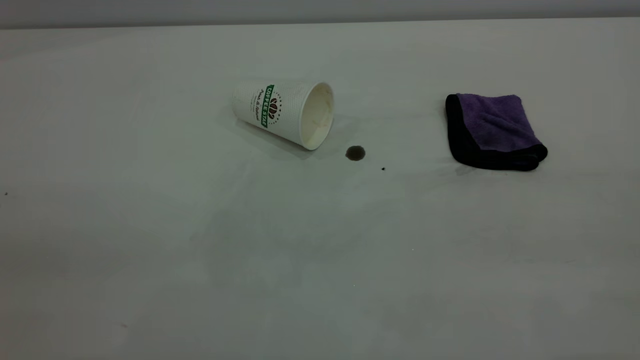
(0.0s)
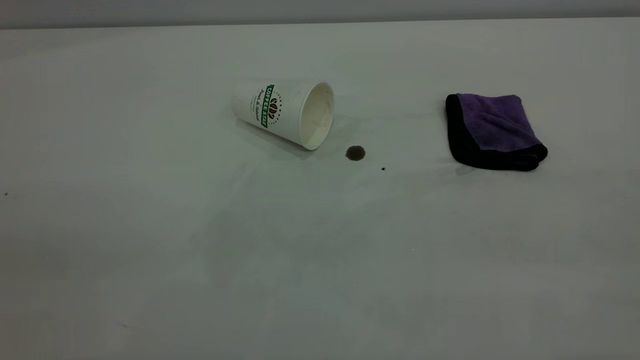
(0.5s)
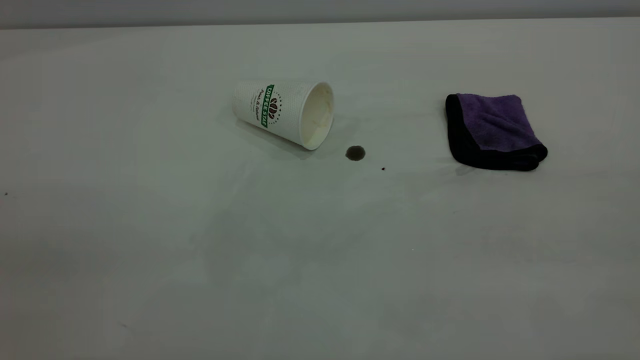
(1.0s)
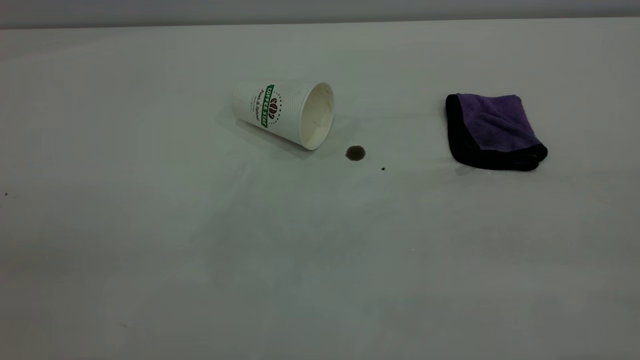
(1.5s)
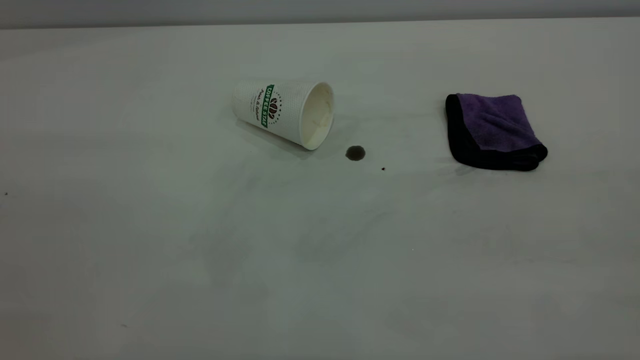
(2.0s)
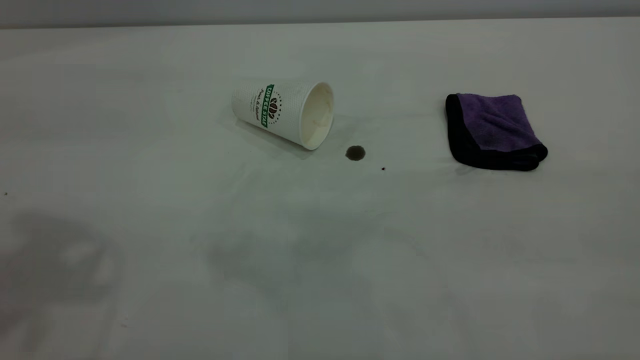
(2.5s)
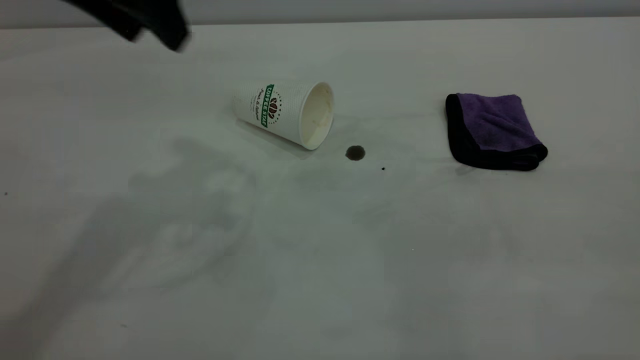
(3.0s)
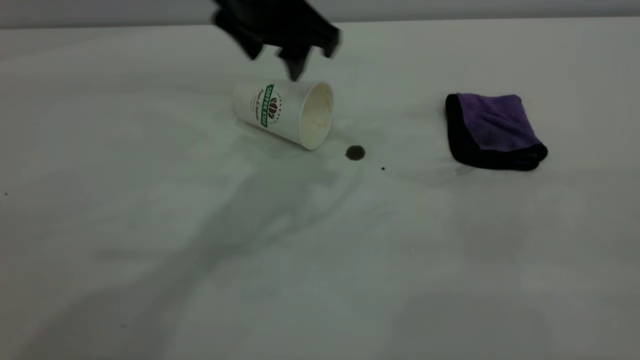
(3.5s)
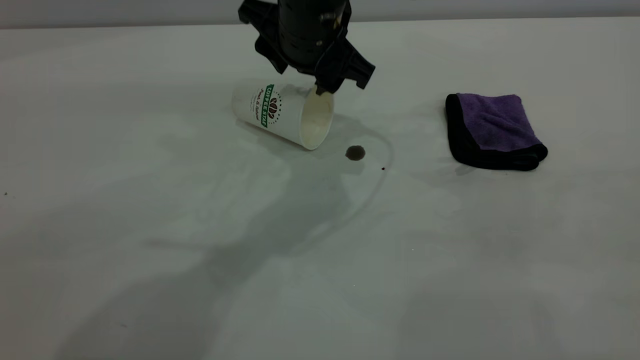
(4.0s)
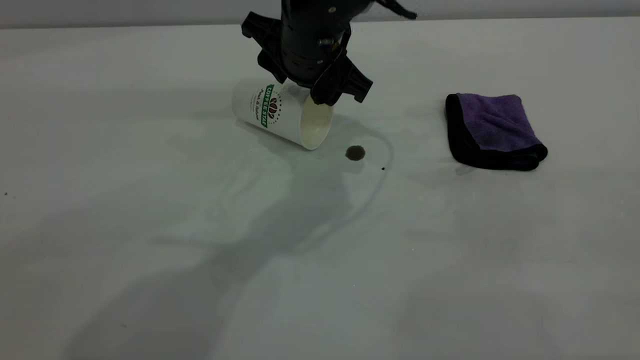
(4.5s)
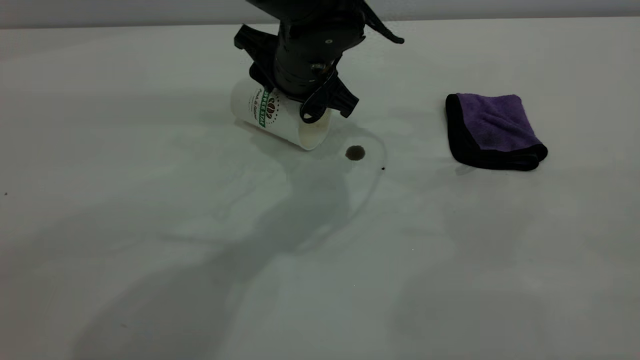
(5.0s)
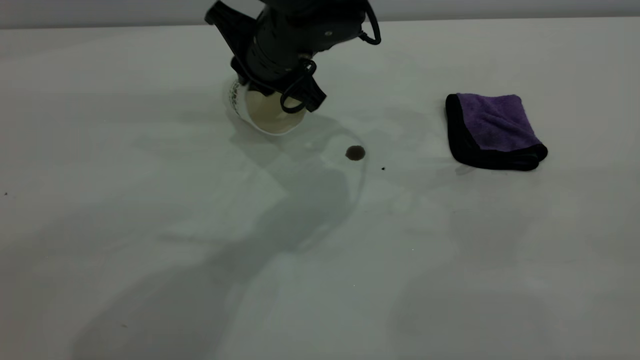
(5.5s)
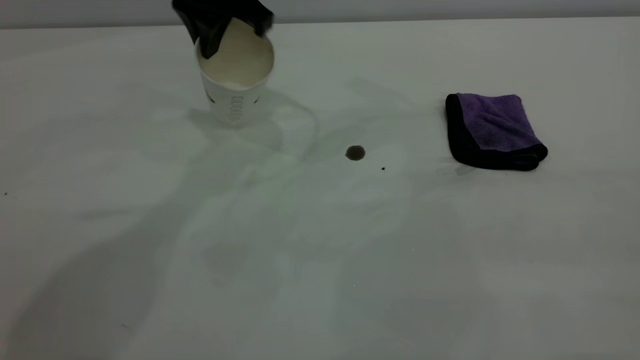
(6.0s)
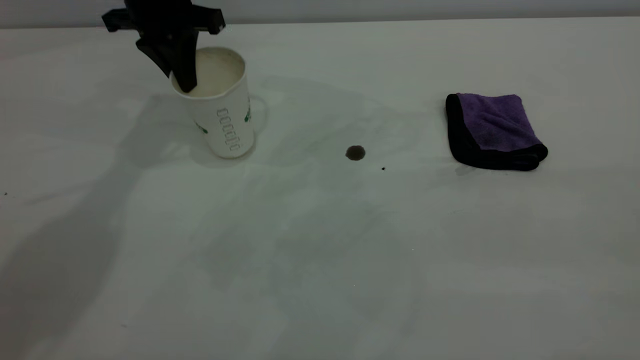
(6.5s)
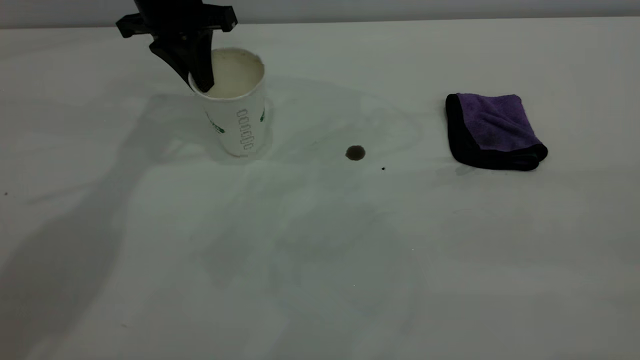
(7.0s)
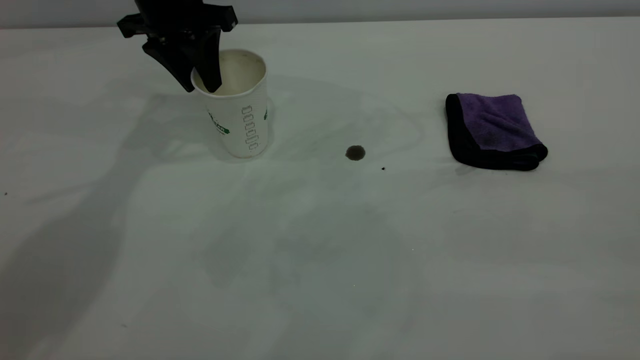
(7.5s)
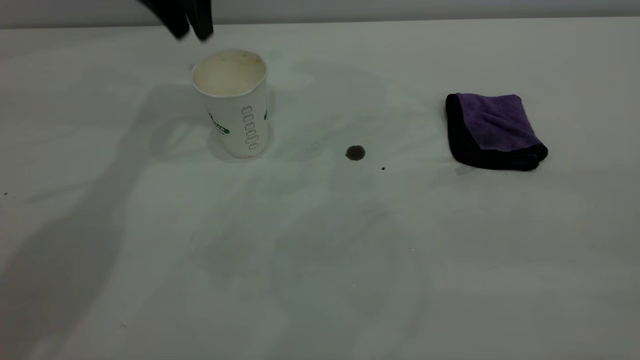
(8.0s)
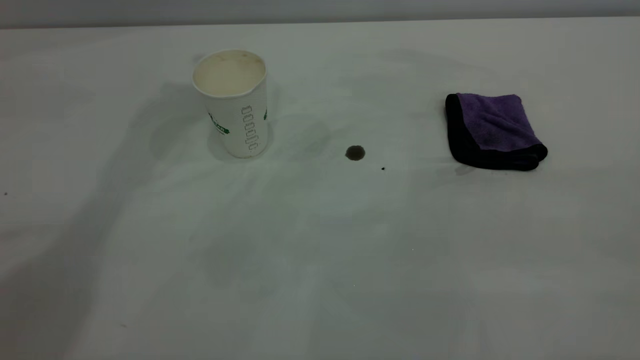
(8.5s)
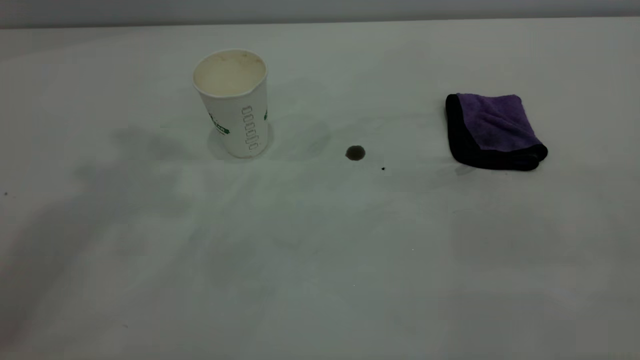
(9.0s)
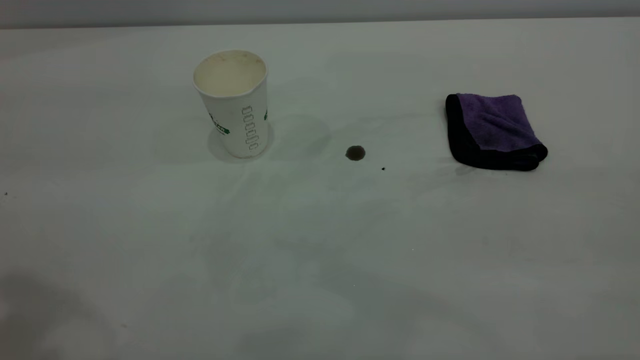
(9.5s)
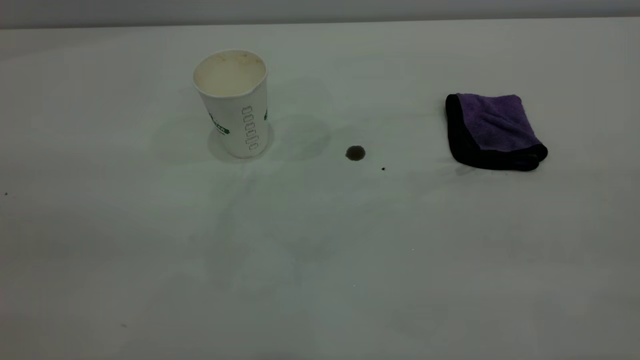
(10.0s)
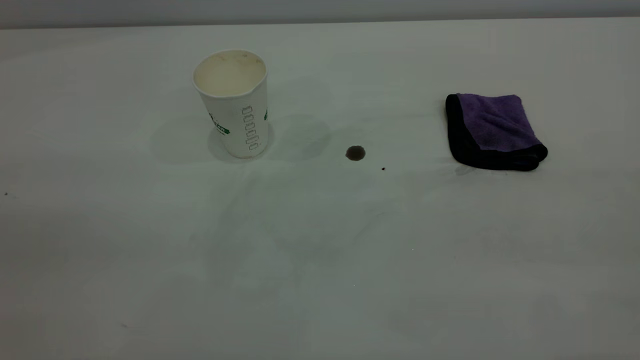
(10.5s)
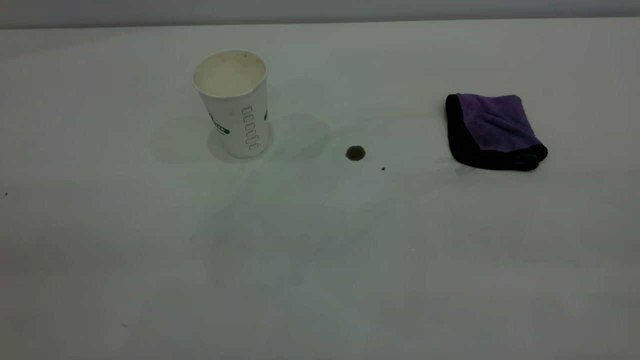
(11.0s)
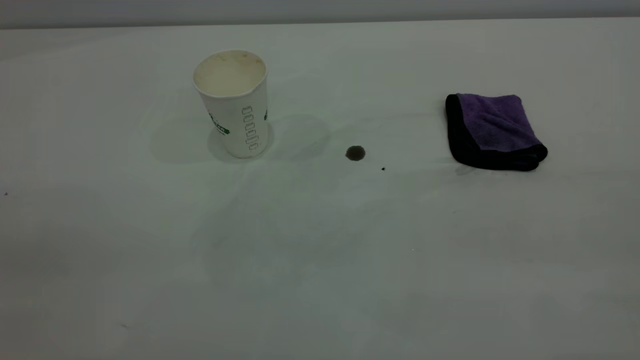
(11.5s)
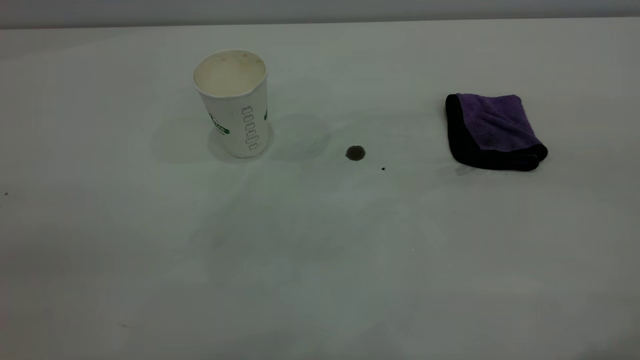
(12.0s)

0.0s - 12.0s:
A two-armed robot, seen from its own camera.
Task of the whole recording: the left gripper pick up the fallen cup and place it upright, the right gripper grasp the purple rag and wipe the coffee stain on the table, the right gripper put the purple rag back in its original position.
Step, 0.0s - 7.5s: Stand the paper cup upright.
2.0s - 4.0s: The left gripper is displaced forward, to the right and downward by about 50 cm.
4.0s - 6.0s: The left gripper goes approximately 15 cm to the left, forward and upward, and closes.
6.0s - 8.0s: The left gripper moves to the left, roughly 5 cm, and opens.
8.0s - 10.0s: The left gripper moves backward, roughly 40 cm.

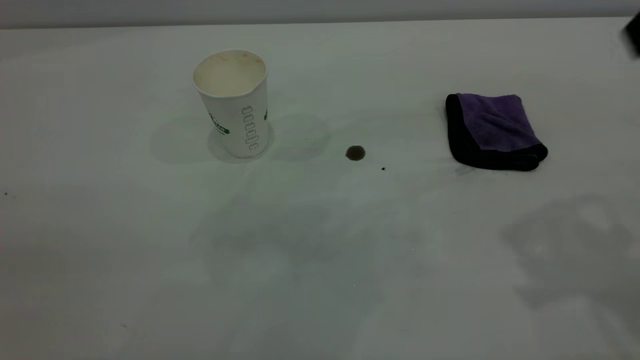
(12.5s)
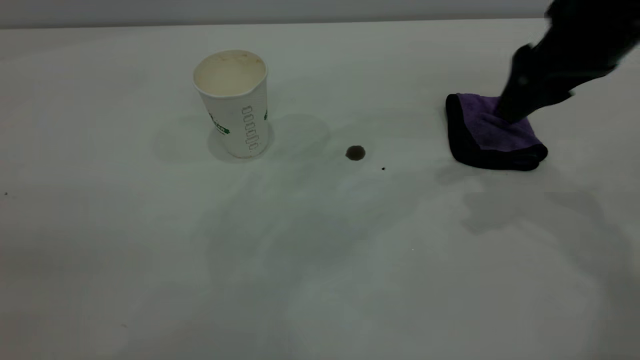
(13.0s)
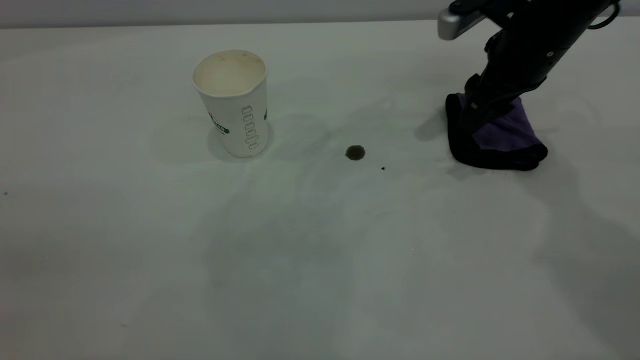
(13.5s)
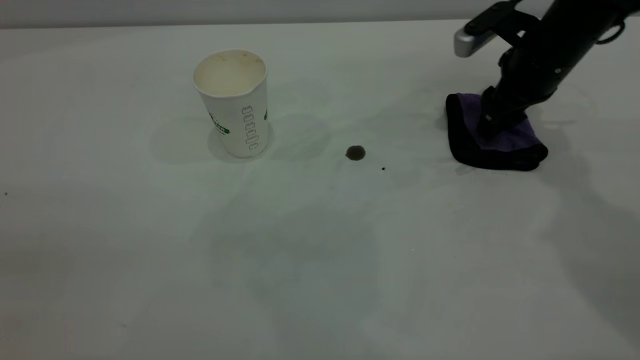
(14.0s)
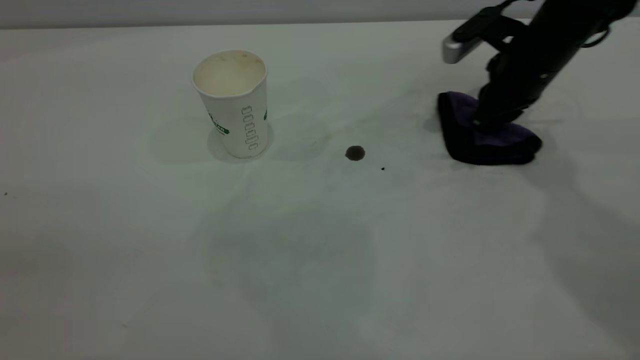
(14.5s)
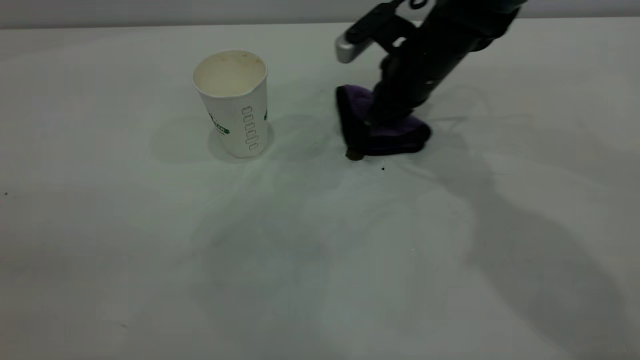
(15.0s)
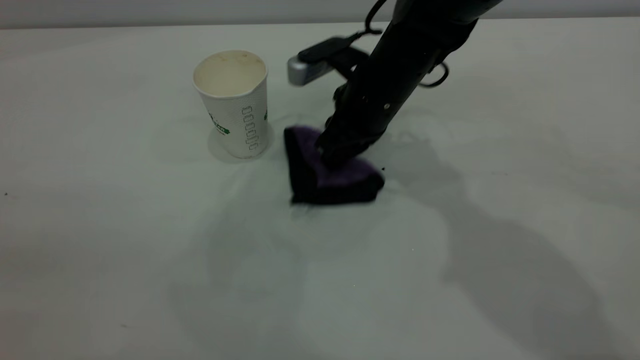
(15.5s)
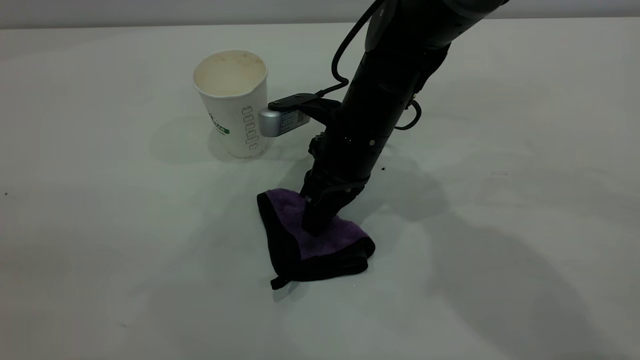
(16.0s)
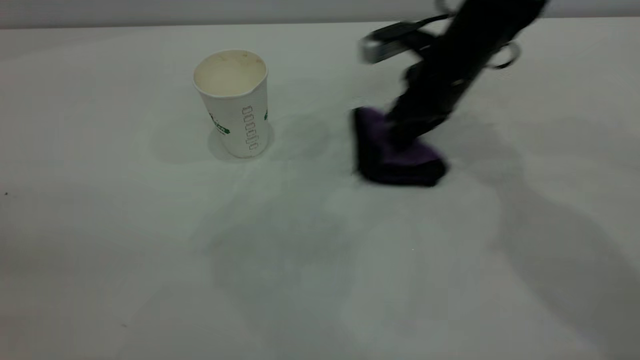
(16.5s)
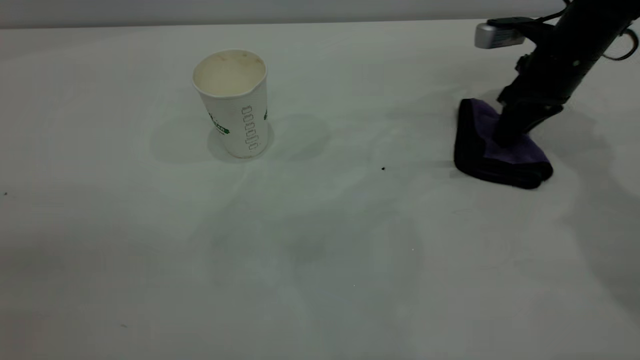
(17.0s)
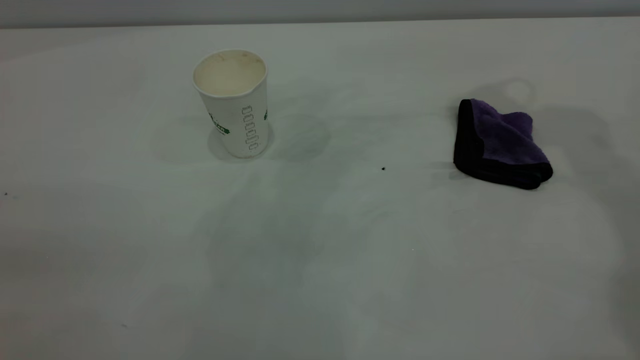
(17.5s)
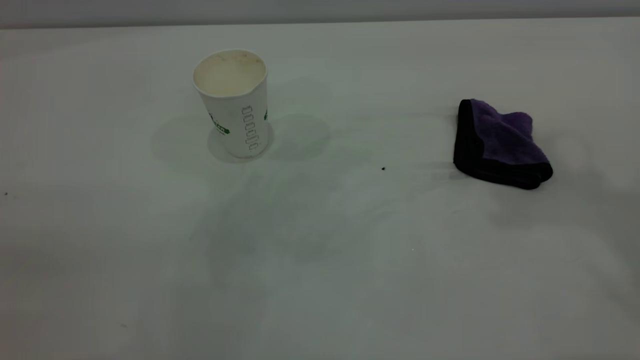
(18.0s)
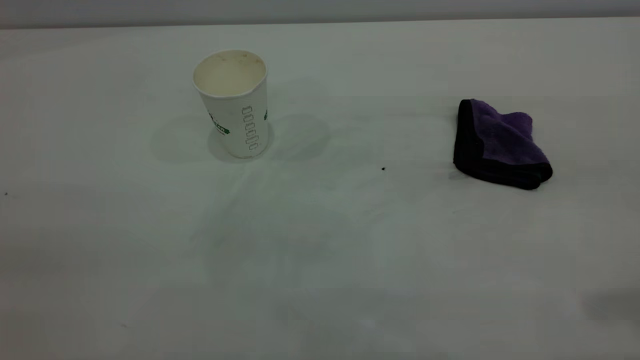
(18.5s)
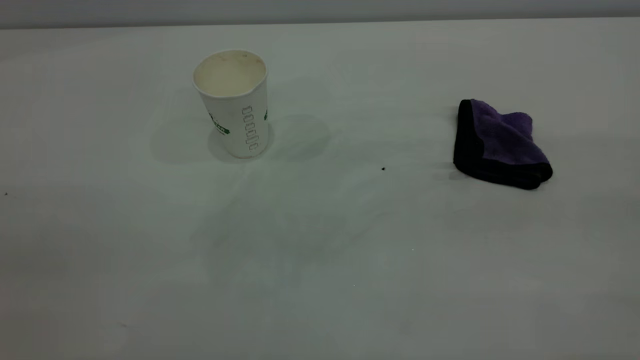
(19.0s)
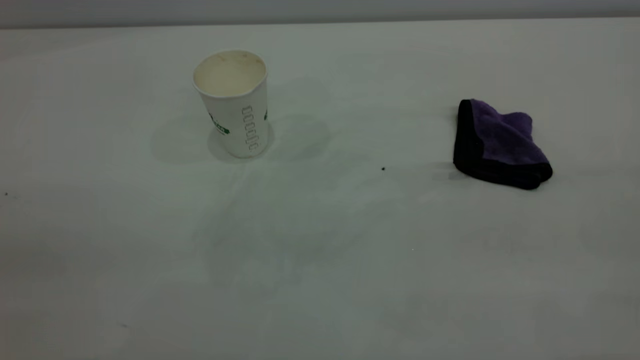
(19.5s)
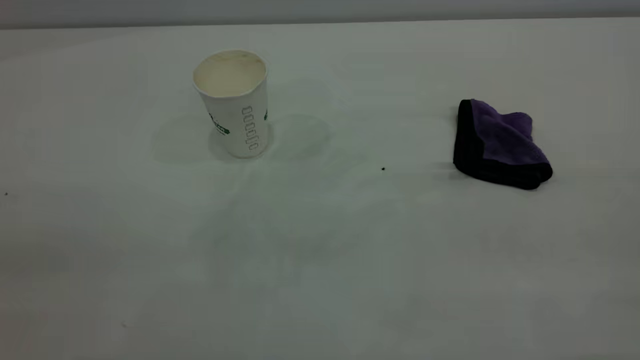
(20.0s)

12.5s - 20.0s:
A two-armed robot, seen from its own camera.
Task of the whole recording: the left gripper pick up the fallen cup and place it upright, the right gripper grasp the purple rag and wipe the coffee stain on the table, the right gripper put the purple rag back in its original position.
Step, 12.5s - 17.0s: Wipe the stains off the table with a rag.
12.5s - 14.5s: The right gripper moves downward and forward, roughly 30 cm, and closes up.
14.5s - 16.5s: The right gripper travels to the left and back again, approximately 20 cm each way.
16.5s - 18.0s: The right gripper is displaced upward and backward by some 40 cm, and opens its fingers.
